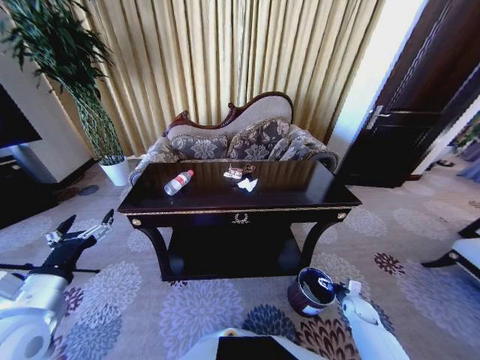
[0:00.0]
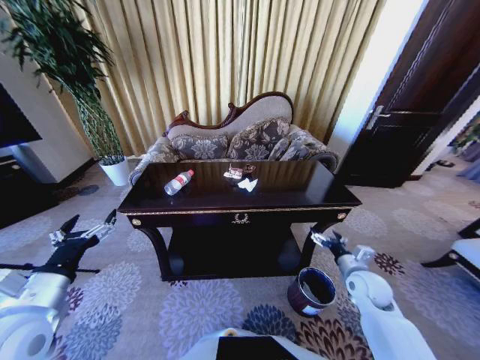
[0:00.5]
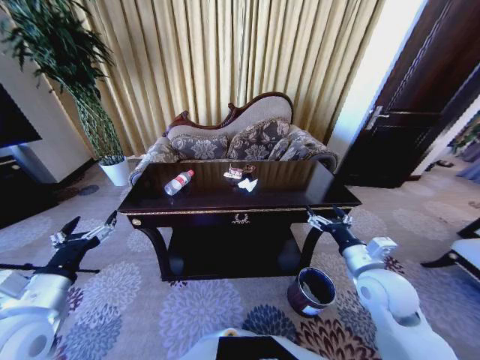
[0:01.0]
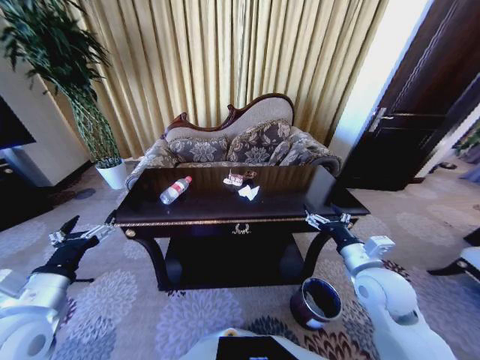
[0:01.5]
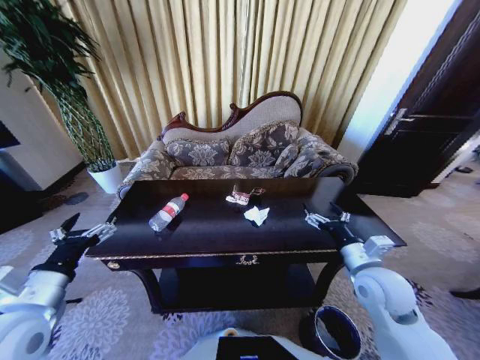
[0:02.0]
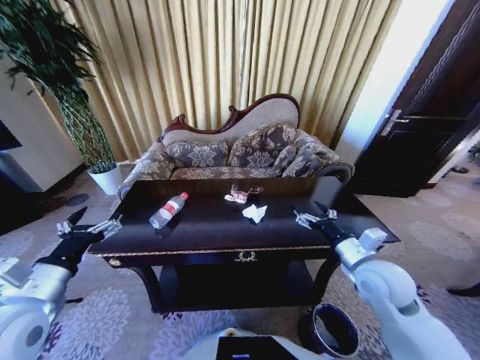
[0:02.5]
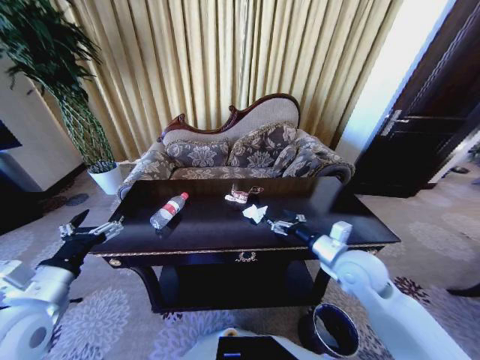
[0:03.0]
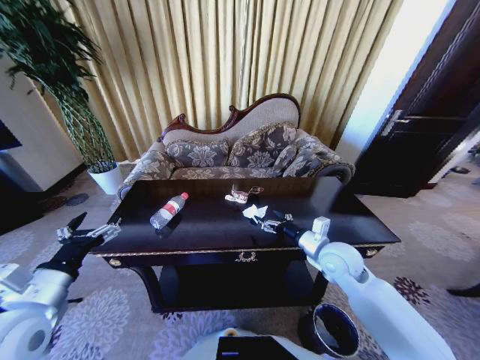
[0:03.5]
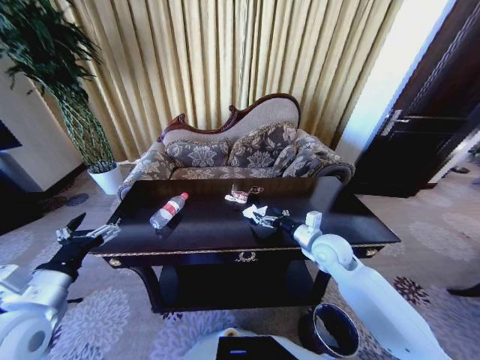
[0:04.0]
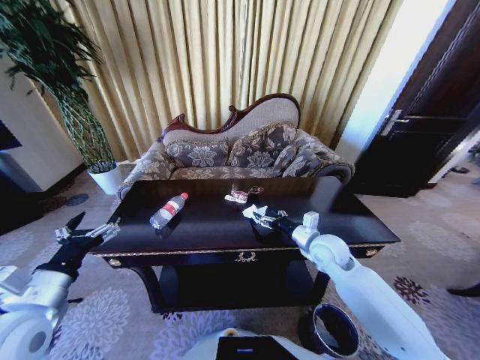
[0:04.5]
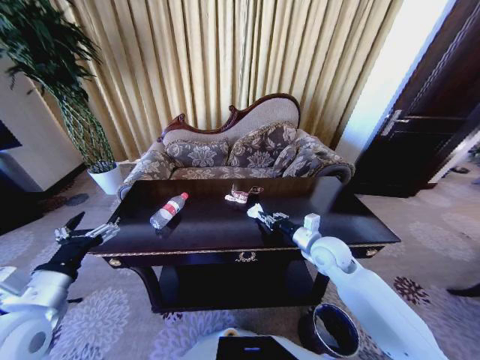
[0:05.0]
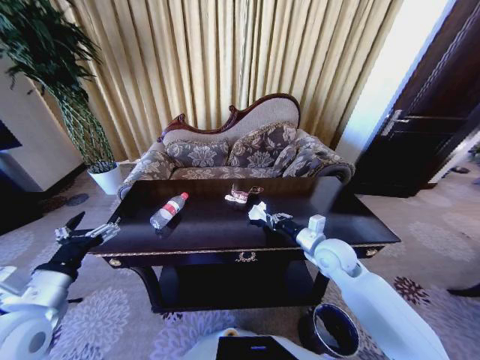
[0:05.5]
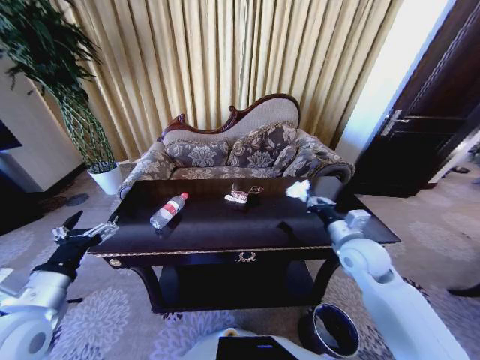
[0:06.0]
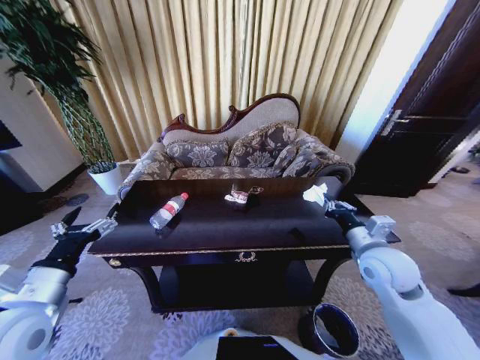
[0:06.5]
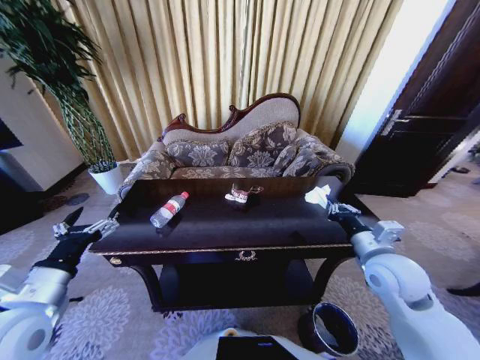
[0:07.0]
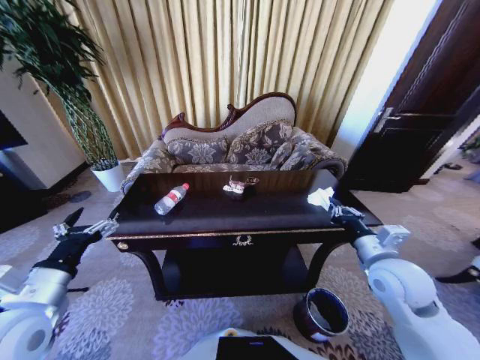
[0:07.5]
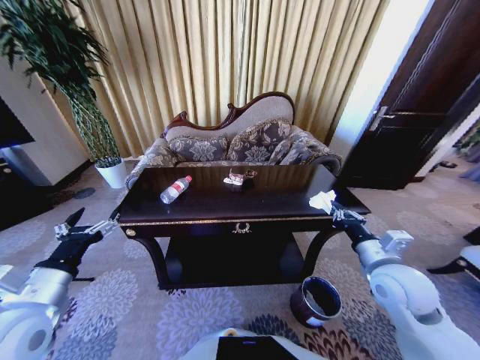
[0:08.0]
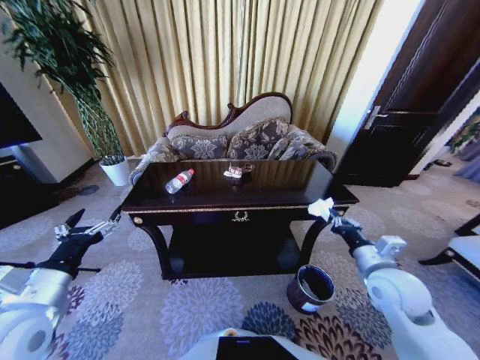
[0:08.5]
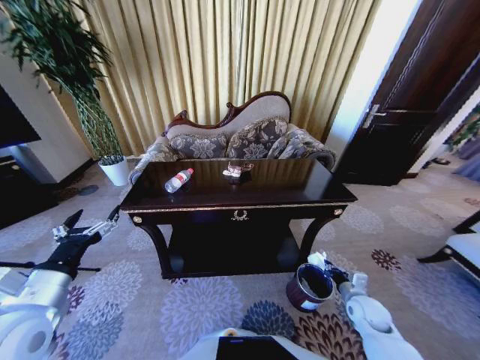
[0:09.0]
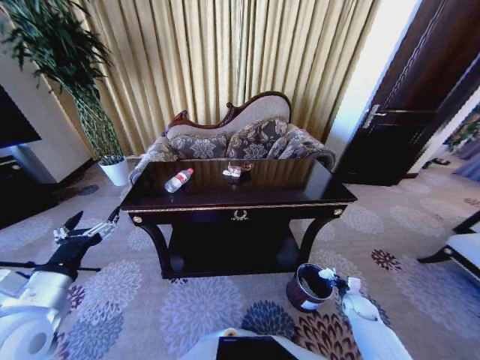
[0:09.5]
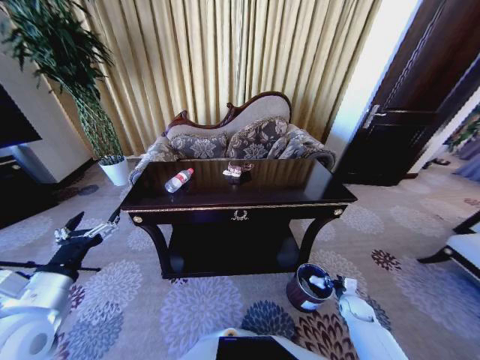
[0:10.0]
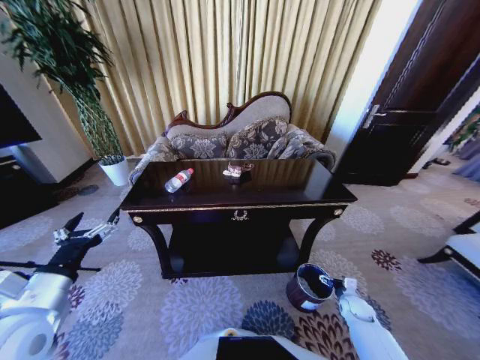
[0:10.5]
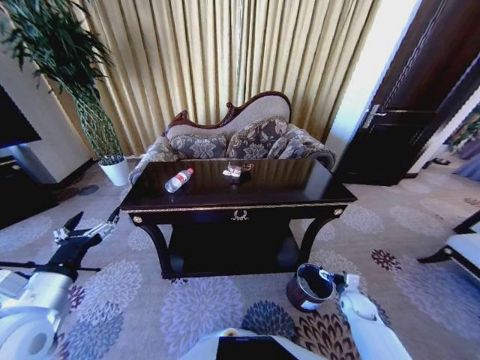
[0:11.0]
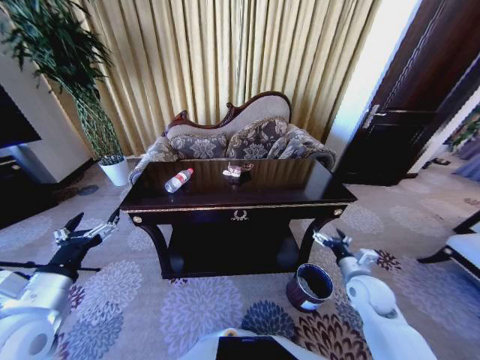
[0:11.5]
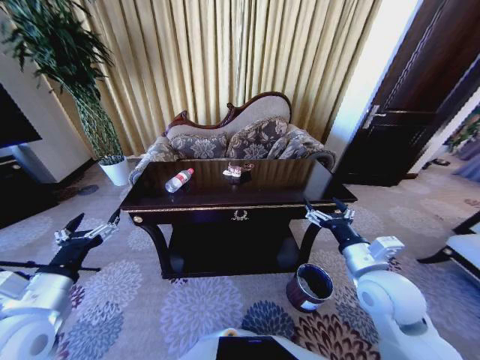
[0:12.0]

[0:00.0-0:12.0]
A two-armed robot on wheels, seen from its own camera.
Task of the whole recording: Move to the front of the table and place the trash on the table into the trash bin.
0:00.0 to 0:02.0: The right gripper shifts some 35 cm upward and to the left.
0:02.0 to 0:04.0: The right gripper heads forward and to the left, covering approximately 10 cm.
0:04.0 to 0:06.0: The right gripper moves to the right, some 5 cm, and closes.
0:06.0 to 0:08.0: The right gripper is displaced backward by roughly 10 cm.
0:08.0 to 0:10.0: The right gripper moves downward, some 35 cm, and opens up.
0:10.0 to 0:12.0: The right gripper shifts approximately 35 cm upward and to the left, and opens.

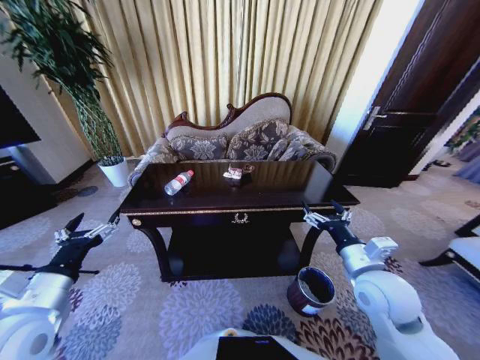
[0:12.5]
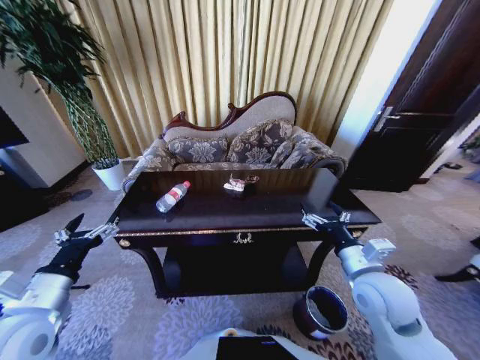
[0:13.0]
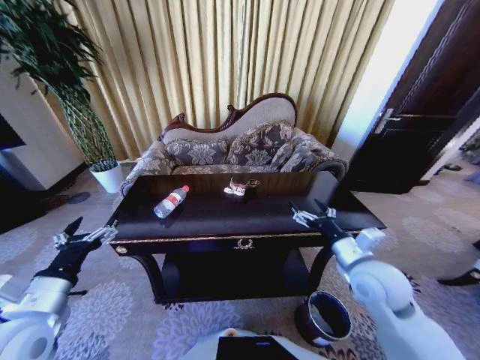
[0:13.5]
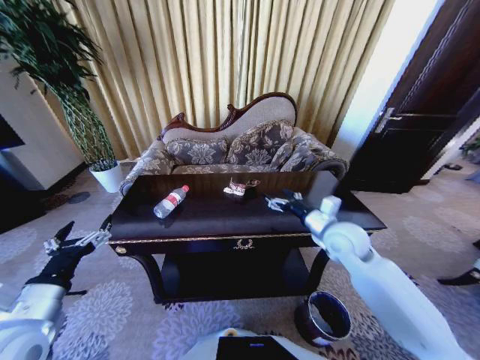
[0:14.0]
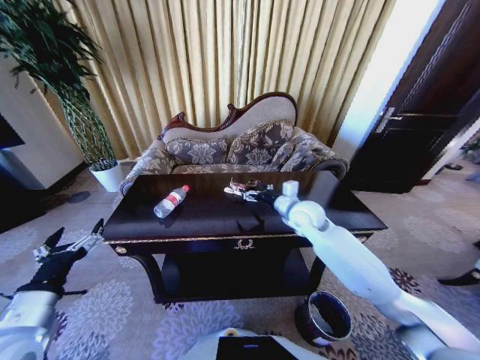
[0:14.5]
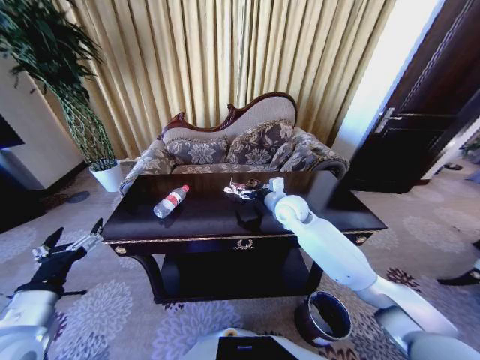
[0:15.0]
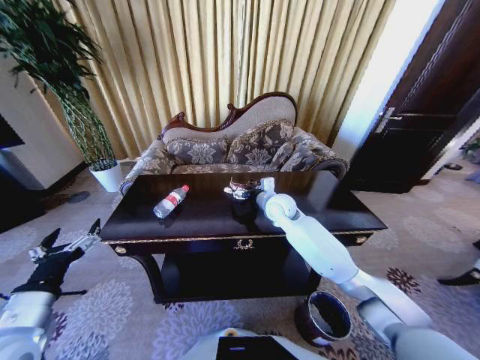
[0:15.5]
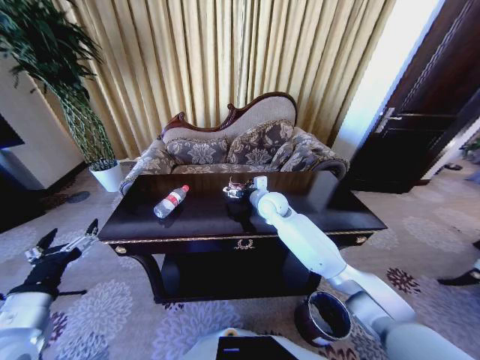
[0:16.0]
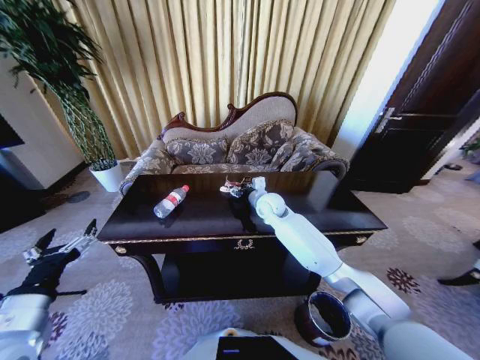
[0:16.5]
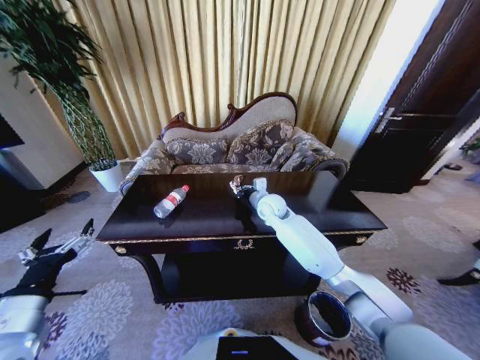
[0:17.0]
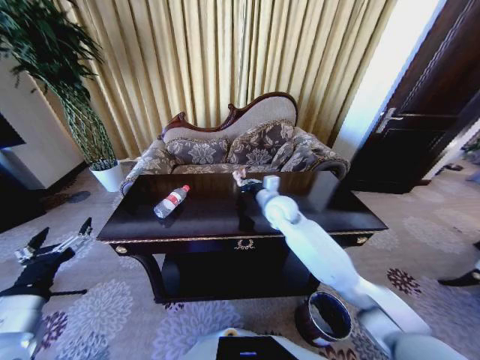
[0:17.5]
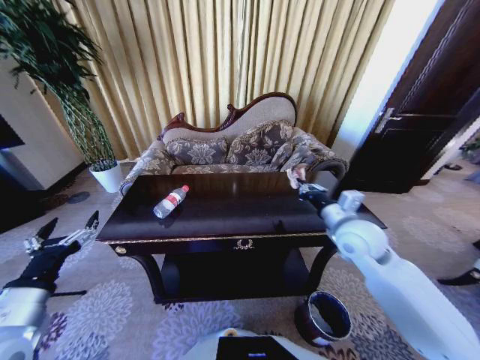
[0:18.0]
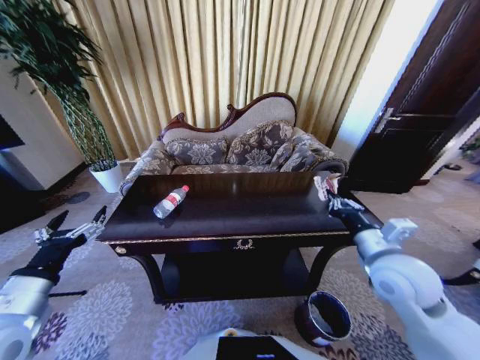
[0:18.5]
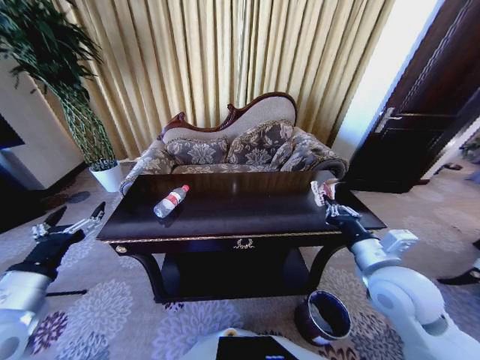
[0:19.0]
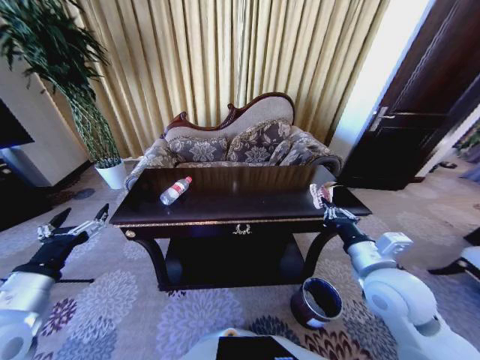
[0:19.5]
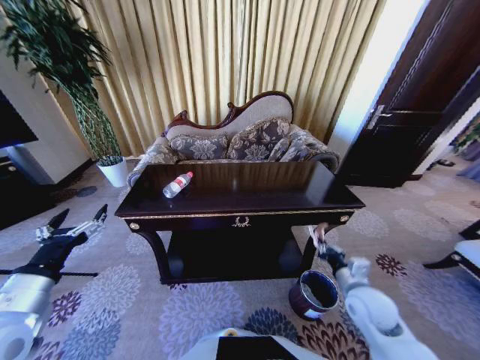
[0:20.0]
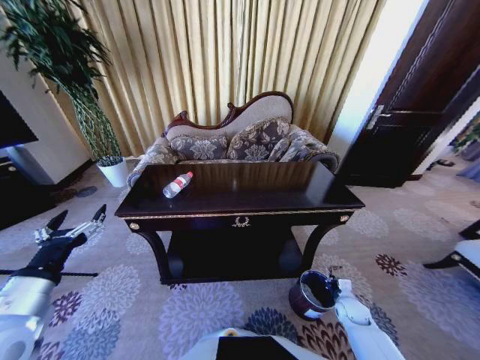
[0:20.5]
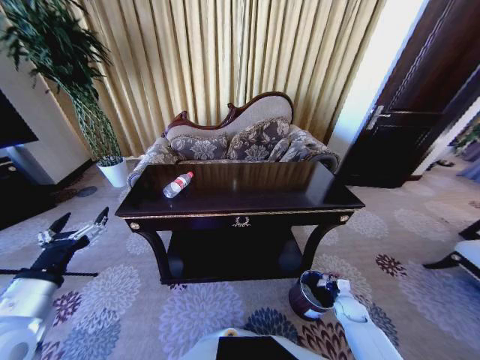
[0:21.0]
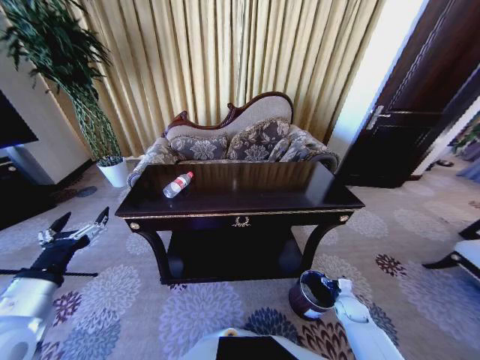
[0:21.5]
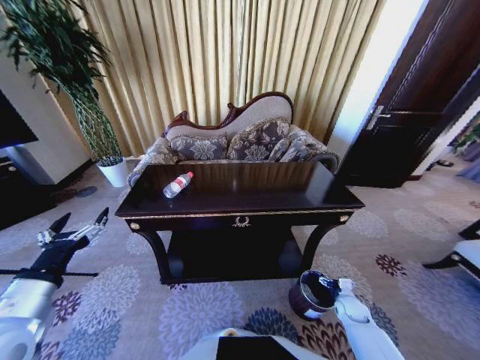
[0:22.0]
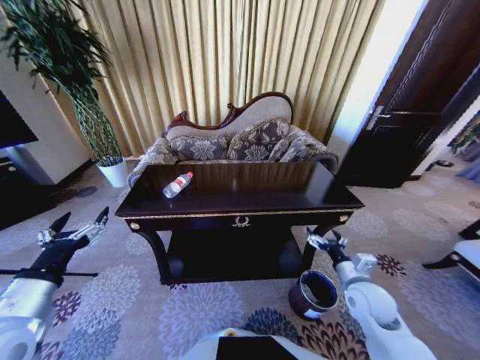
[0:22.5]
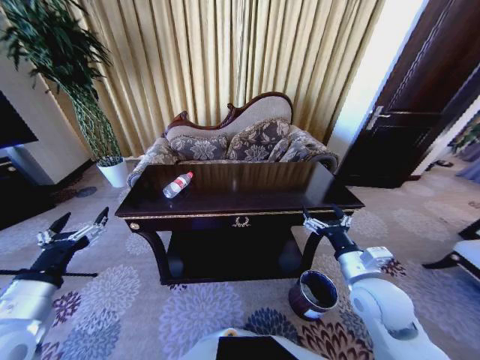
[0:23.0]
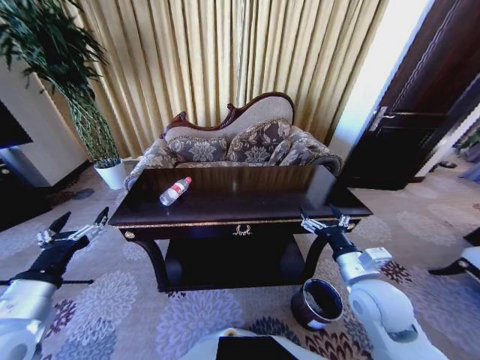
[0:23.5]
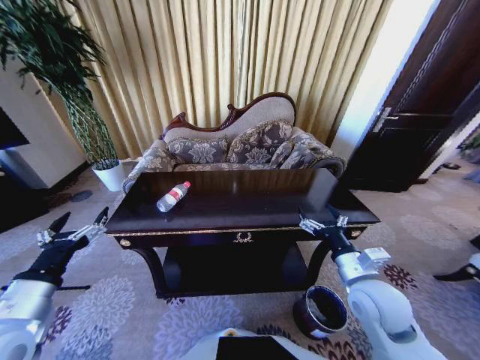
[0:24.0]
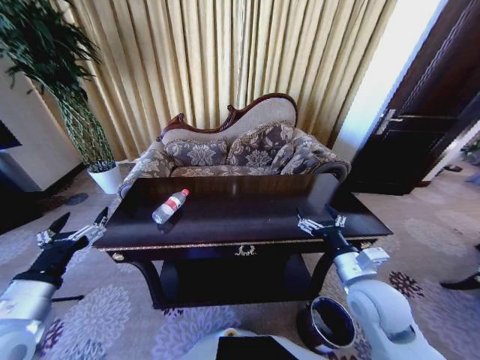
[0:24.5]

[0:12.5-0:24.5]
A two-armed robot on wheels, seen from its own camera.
Task of the whole recording: Move to the front of the table and place the trash on the table into the trash bin.
0:12.5 to 0:14.5: The right gripper is displaced forward and to the left by about 25 cm.
0:14.5 to 0:16.5: The right gripper shifts approximately 10 cm to the left and forward, and closes up.
0:16.5 to 0:18.5: The right gripper moves backward and to the right, some 35 cm, and closes its fingers.
0:18.5 to 0:20.5: The right gripper moves downward, roughly 35 cm.
0:20.5 to 0:22.5: The right gripper is displaced upward by some 20 cm, and opens its fingers.
0:22.5 to 0:24.5: The right gripper heads upward and to the left, covering roughly 10 cm.

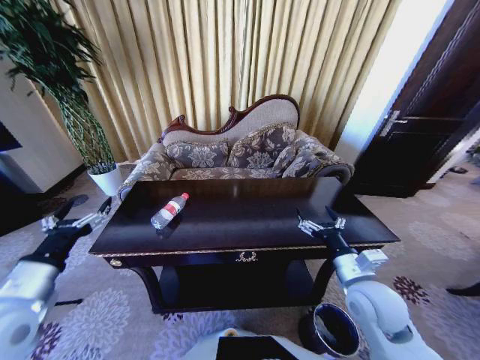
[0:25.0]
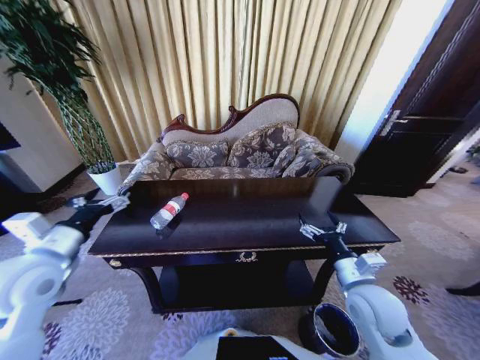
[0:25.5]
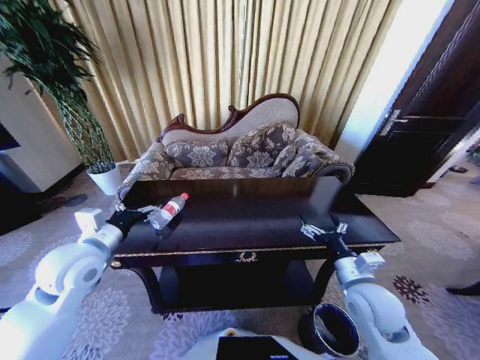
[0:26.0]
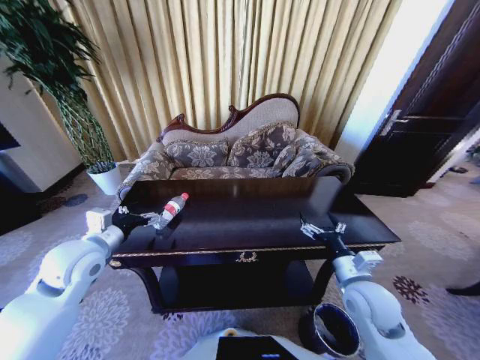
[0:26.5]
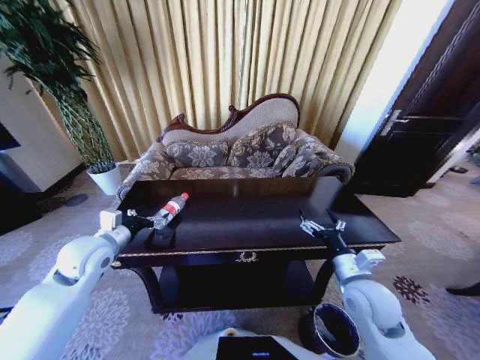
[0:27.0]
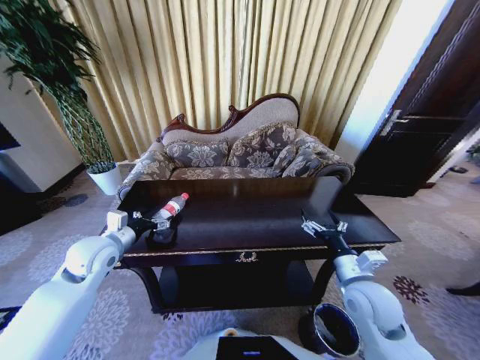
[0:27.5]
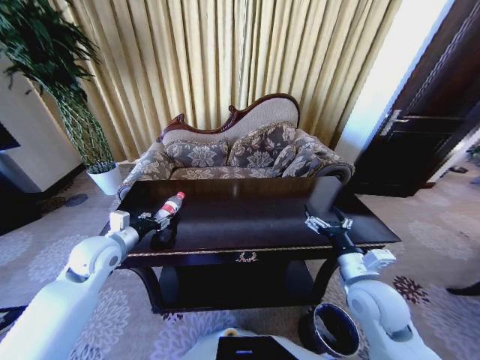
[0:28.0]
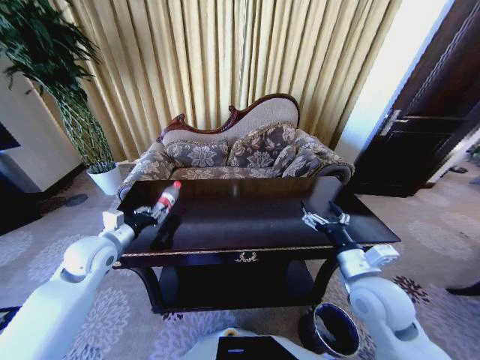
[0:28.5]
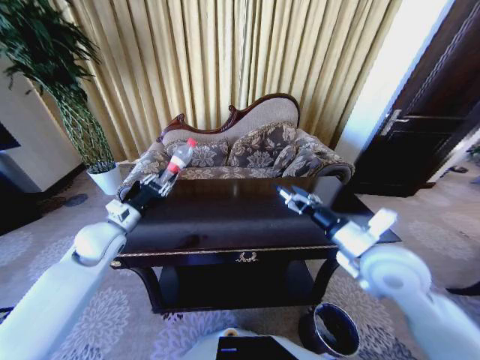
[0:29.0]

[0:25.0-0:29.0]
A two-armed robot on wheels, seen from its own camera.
Task of the whole recording: Move to the front of the table and place the trash on the table into the trash bin.
0:25.0 to 0:27.0: The left gripper heads forward, covering about 15 cm.
0:27.0 to 0:29.0: The left gripper closes. The right gripper travels upward by some 10 cm.
